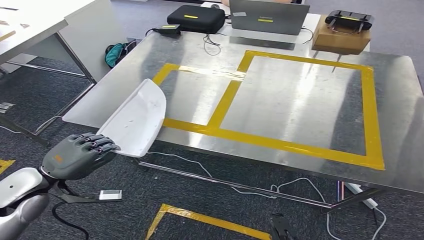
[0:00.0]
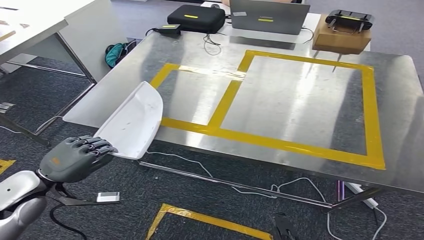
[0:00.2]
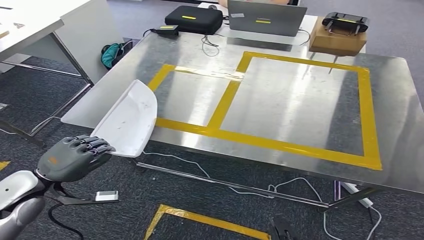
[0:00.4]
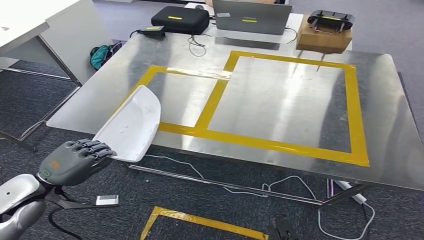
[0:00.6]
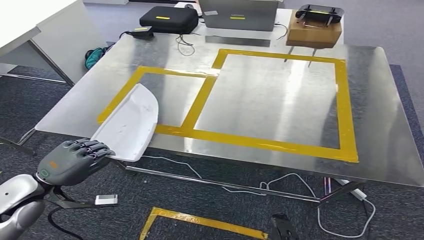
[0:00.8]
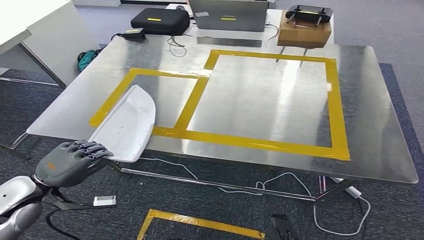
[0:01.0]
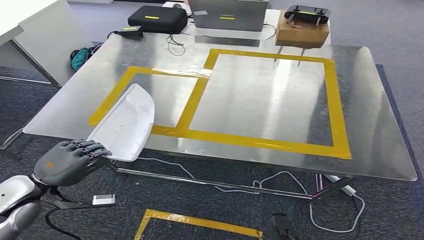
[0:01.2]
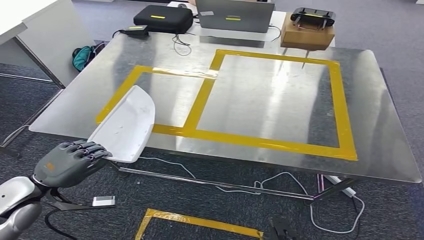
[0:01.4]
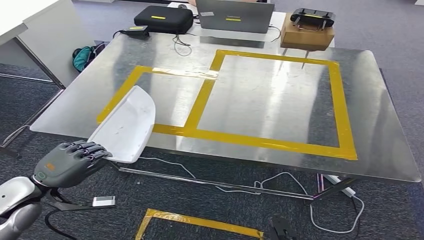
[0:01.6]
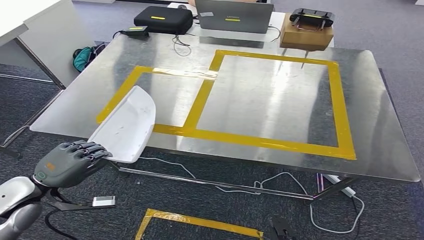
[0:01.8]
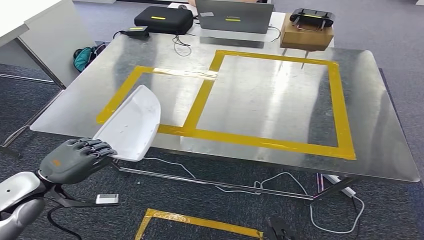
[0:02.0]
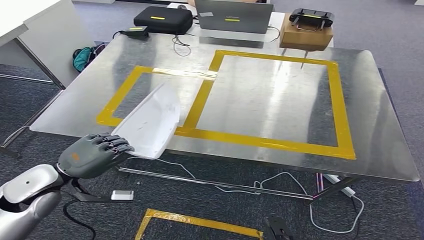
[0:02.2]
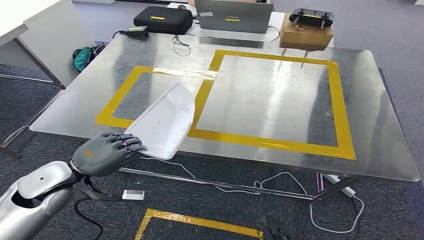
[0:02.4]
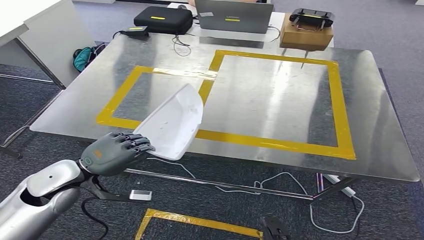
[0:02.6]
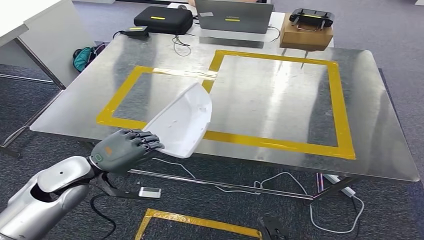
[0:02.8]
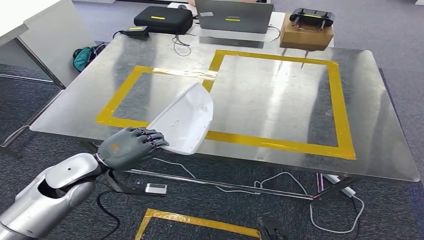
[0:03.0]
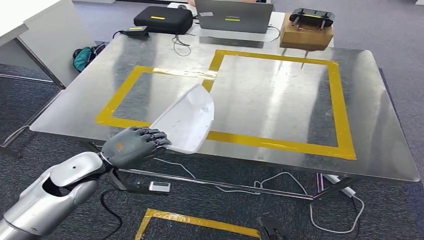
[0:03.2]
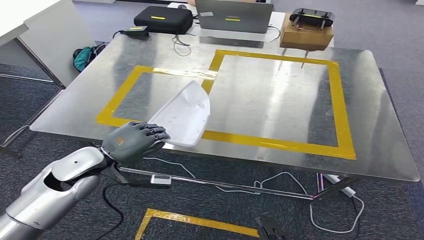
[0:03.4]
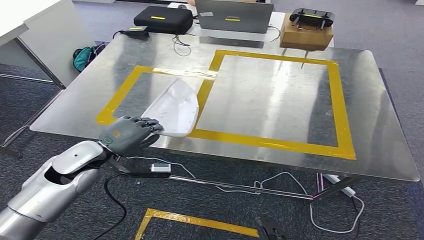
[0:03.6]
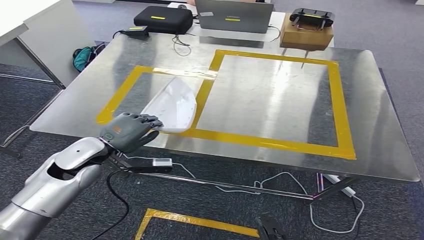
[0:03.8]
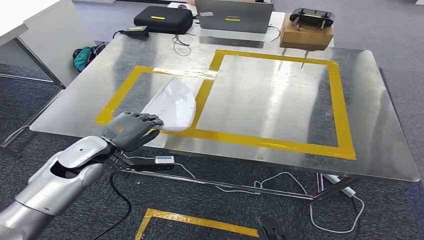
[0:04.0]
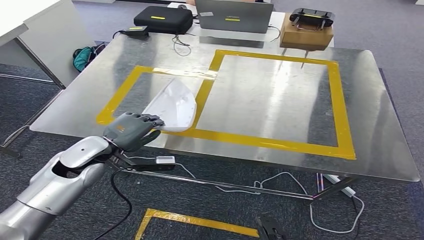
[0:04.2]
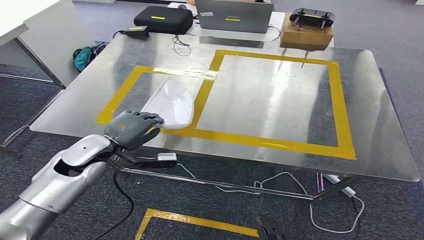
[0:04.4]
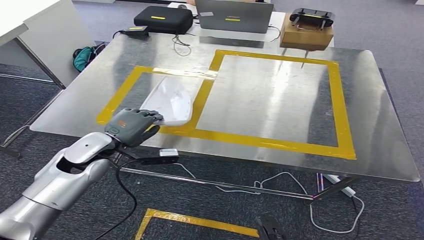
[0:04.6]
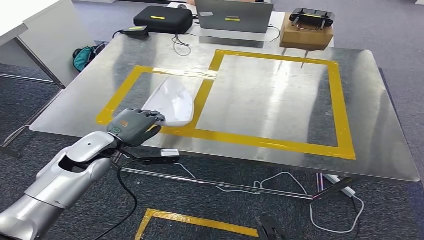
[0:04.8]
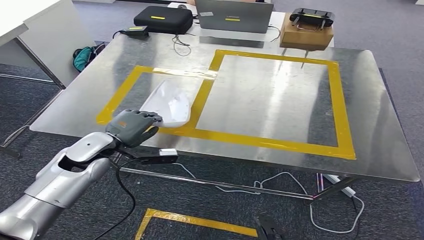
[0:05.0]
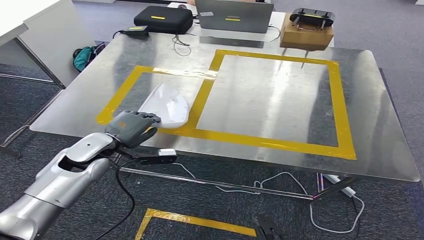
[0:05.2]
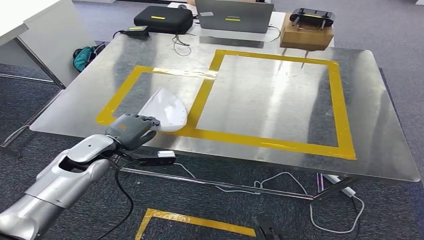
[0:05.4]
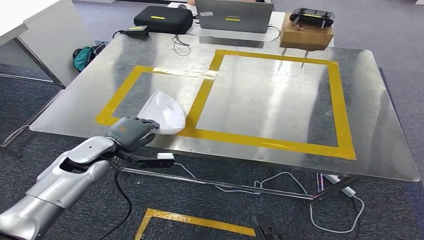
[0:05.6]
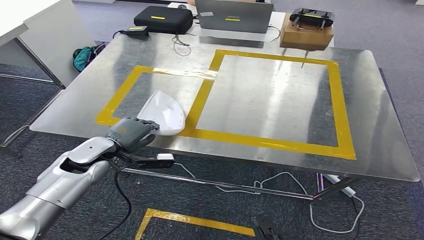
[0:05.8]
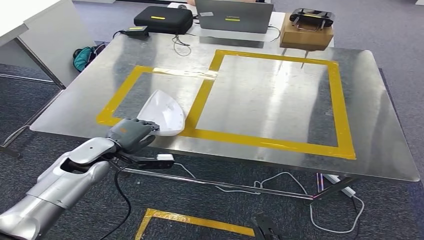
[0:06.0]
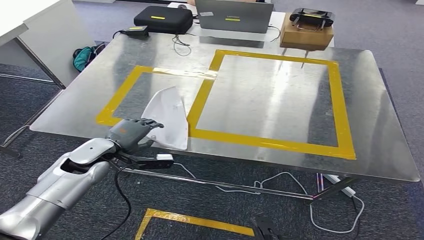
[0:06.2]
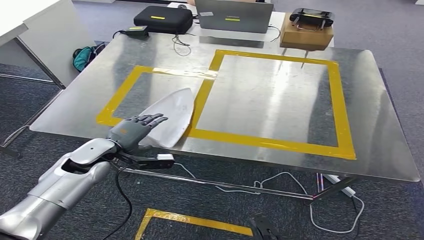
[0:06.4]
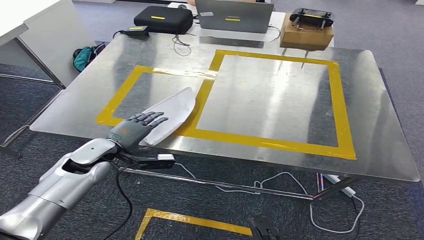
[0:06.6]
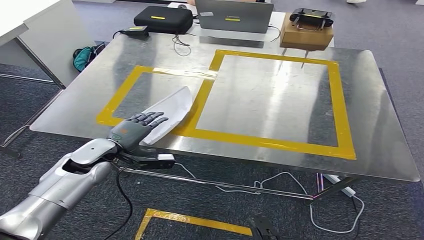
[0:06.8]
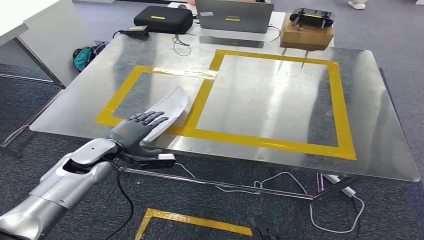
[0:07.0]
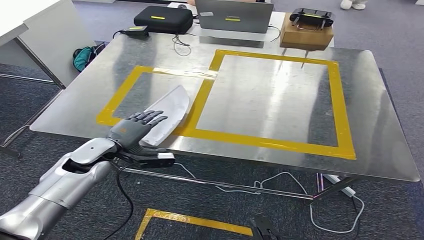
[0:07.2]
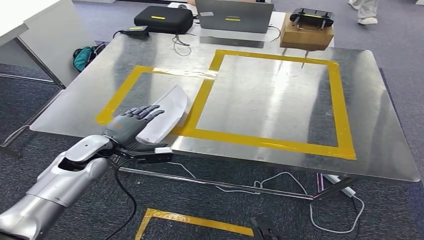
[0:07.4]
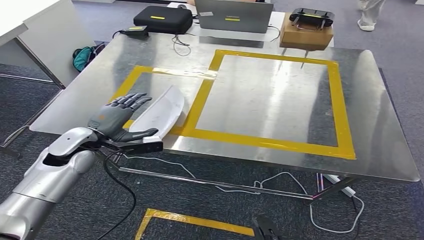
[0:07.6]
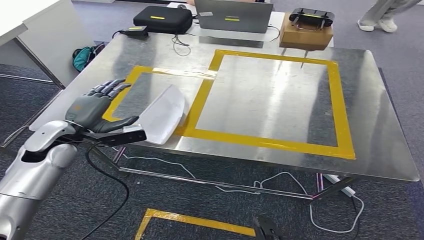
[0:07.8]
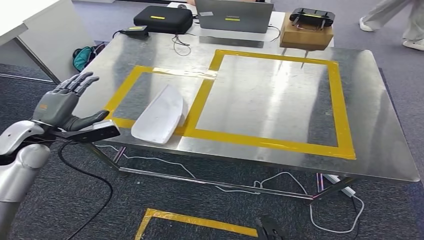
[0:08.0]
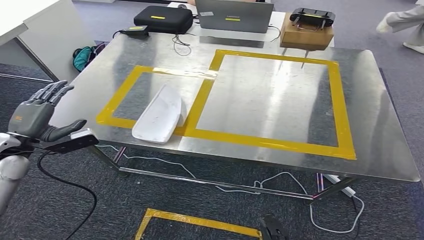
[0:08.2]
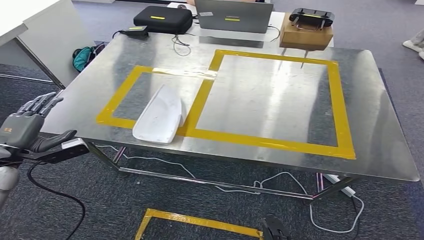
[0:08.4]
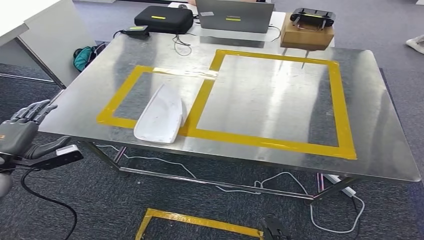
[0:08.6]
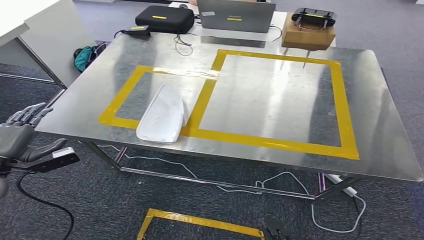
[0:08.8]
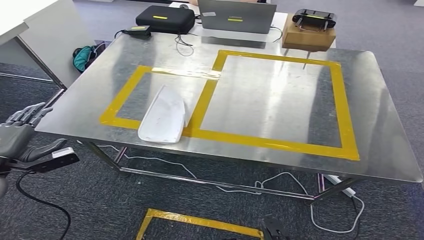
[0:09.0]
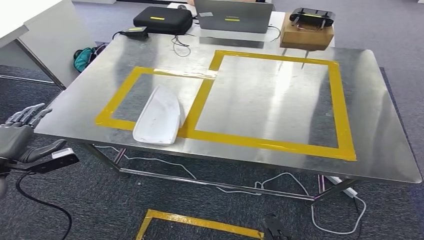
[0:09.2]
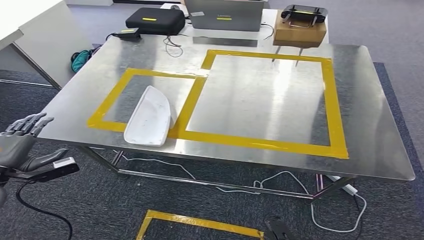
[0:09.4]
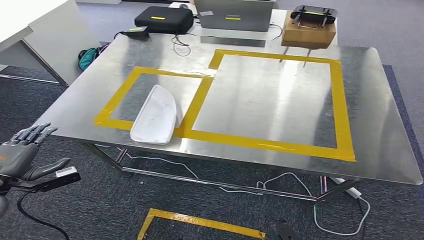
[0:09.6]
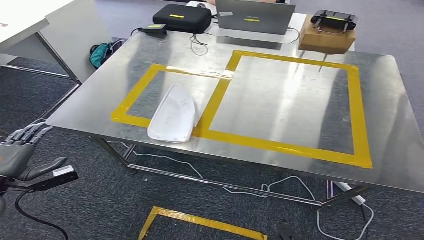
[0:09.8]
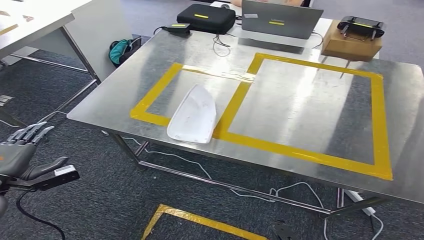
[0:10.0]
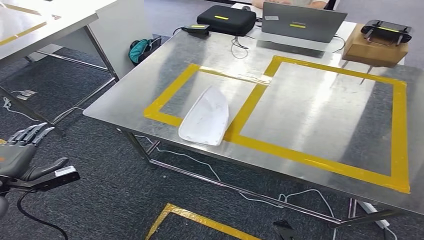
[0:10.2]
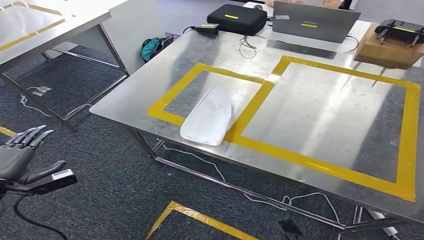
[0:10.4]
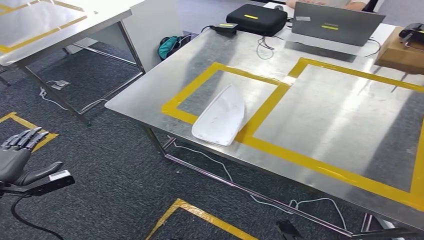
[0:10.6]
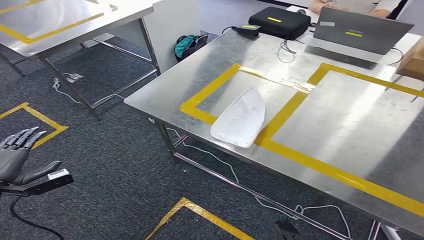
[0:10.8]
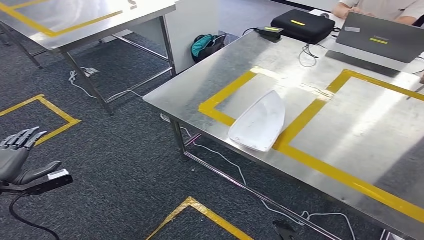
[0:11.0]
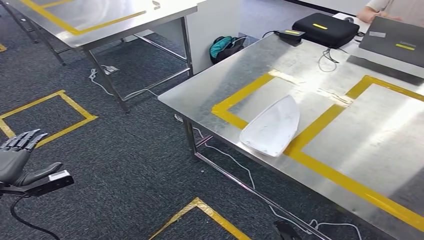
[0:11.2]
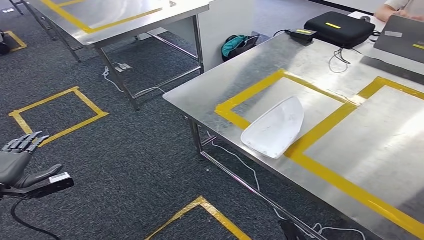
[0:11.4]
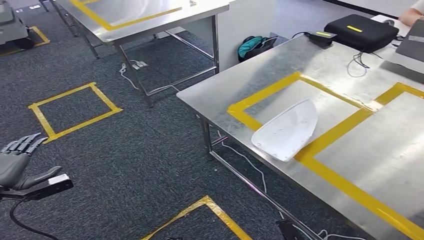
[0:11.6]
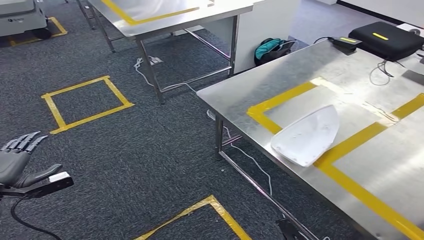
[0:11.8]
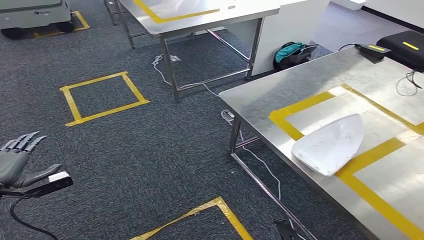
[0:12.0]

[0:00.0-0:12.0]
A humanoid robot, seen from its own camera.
Step, 0:00.0 to 0:09.4: Insert the small component into the corresponding slot on the workbench.
0:01.6 to 0:03.0: The left hand shifts about 15 cm to the right and forward.
0:03.0 to 0:04.4: The hands make only small movements.
0:04.4 to 0:07.6: The hands make only small movements.
0:07.6 to 0:09.0: The left hand heads to the left and backward, covering some 20 cm.

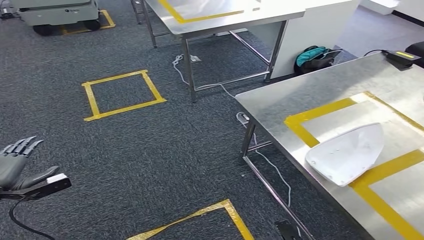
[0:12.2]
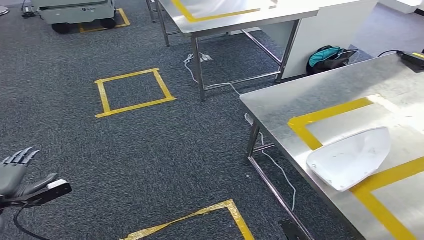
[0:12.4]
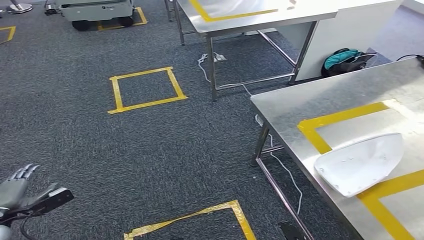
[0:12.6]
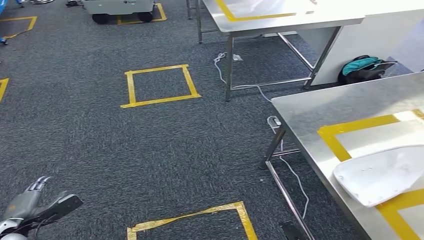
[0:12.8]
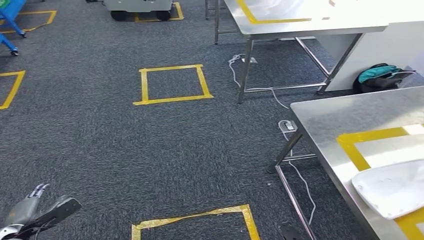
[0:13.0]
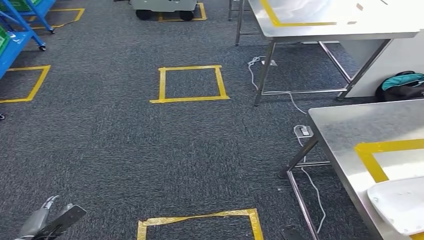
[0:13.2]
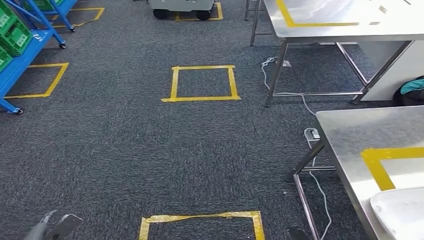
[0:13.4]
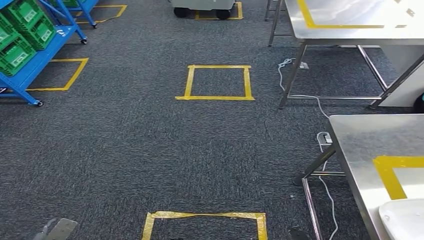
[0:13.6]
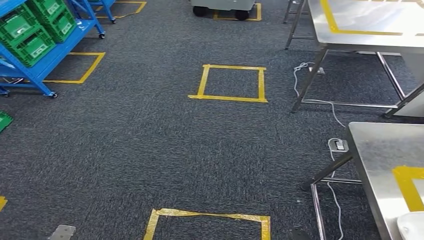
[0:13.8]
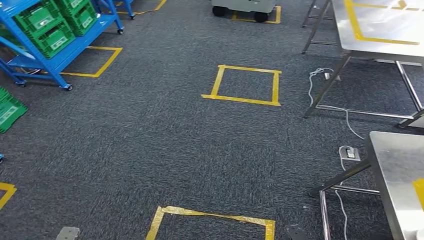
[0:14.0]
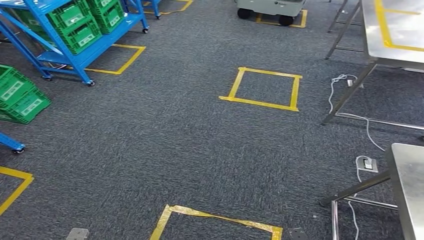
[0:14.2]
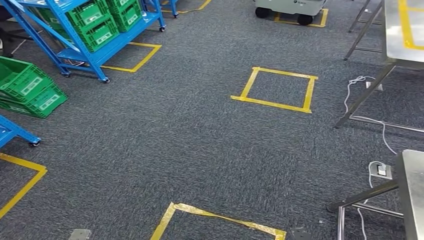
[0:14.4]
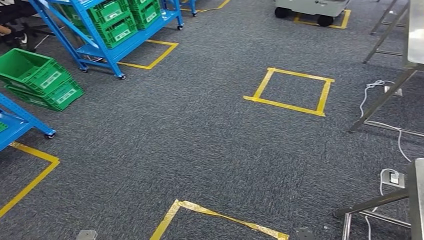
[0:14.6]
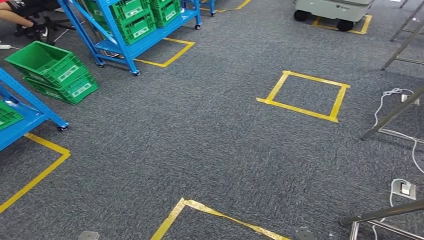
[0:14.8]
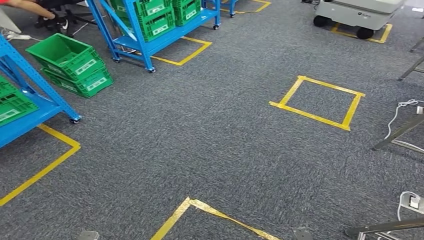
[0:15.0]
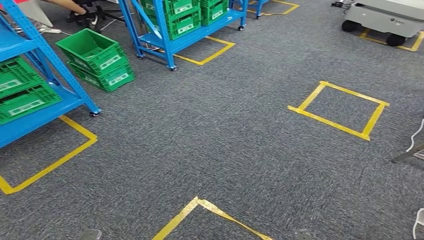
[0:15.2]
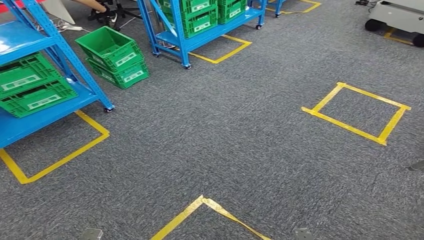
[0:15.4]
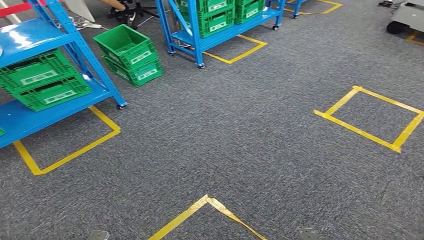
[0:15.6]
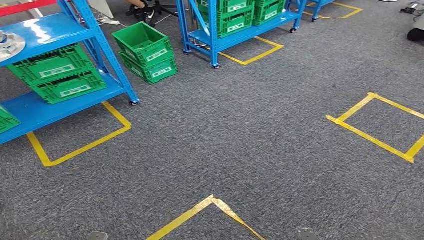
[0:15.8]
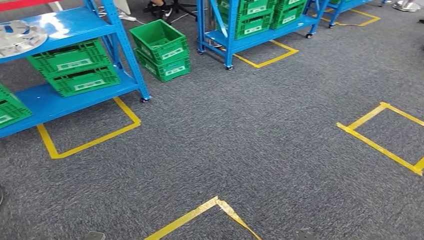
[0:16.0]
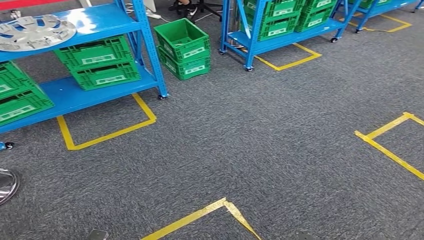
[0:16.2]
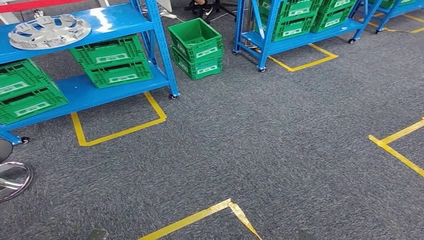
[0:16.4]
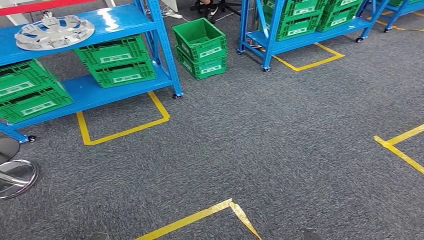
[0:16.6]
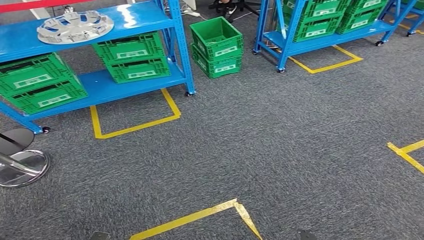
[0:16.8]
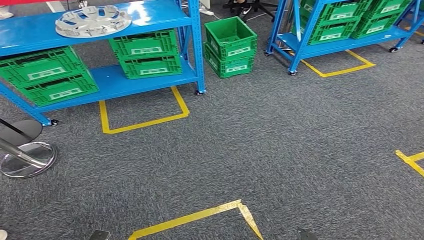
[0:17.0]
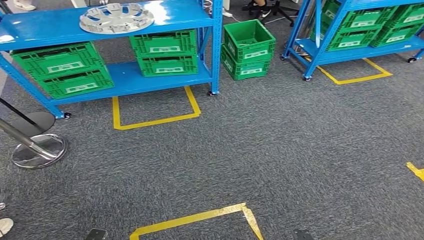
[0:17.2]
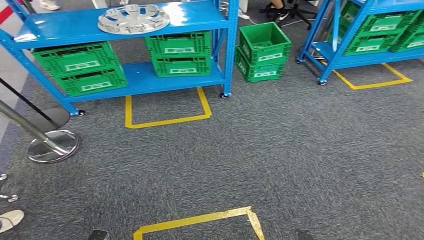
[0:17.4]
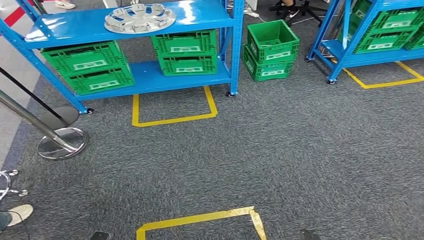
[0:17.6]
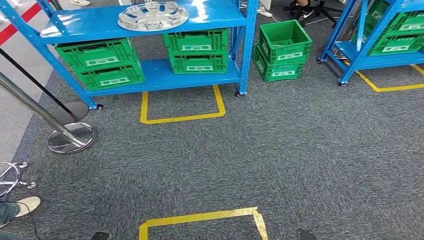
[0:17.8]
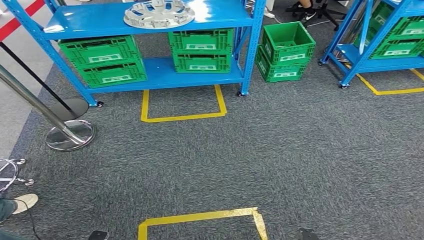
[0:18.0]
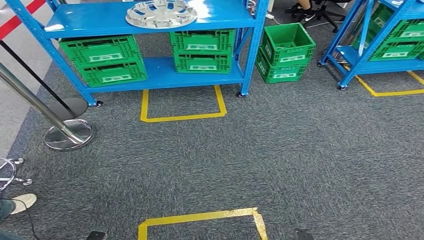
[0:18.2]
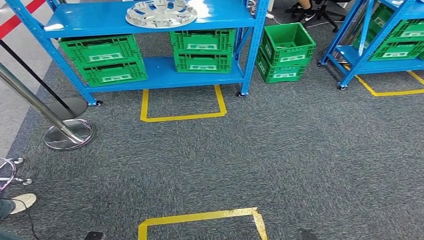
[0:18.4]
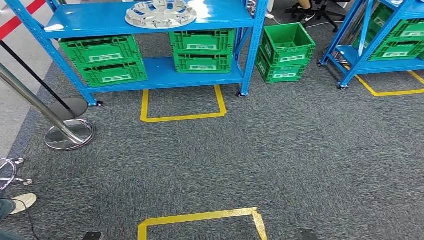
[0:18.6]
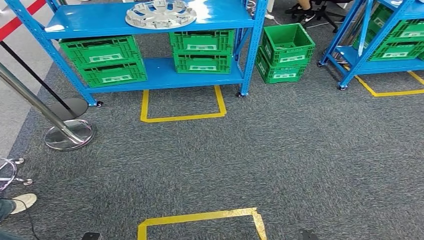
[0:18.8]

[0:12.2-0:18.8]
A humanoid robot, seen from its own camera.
Step, 0:12.2 to 0:18.8: Move to the initial position of the workbench.
